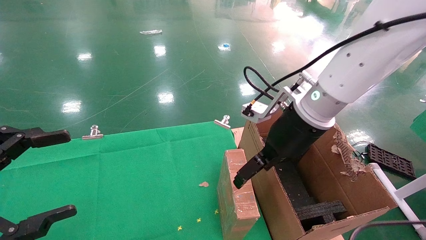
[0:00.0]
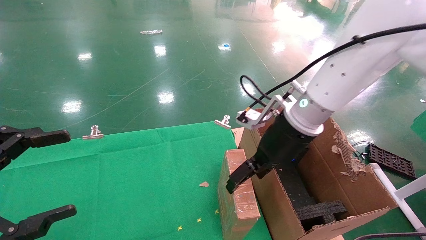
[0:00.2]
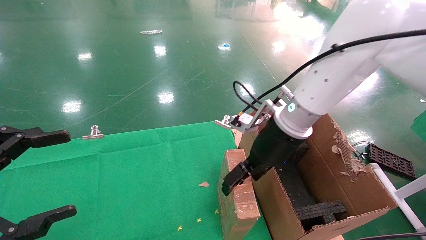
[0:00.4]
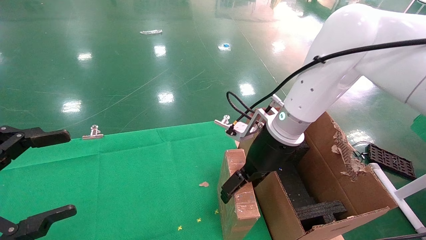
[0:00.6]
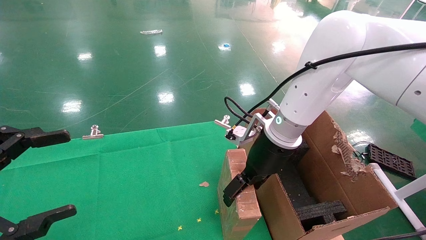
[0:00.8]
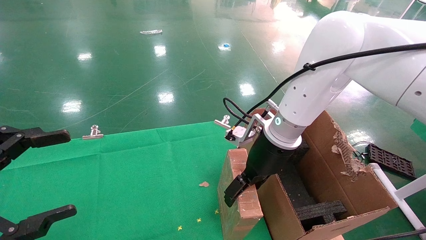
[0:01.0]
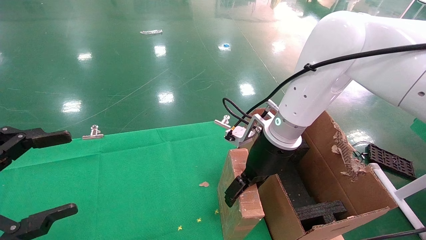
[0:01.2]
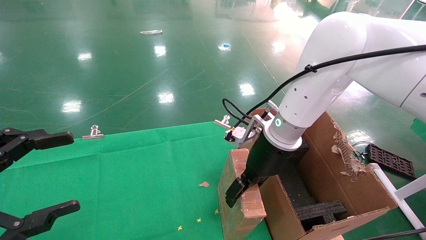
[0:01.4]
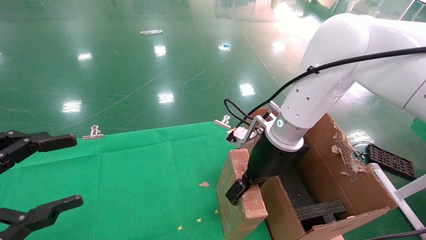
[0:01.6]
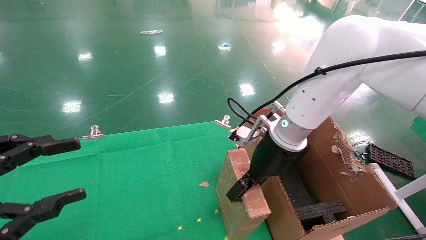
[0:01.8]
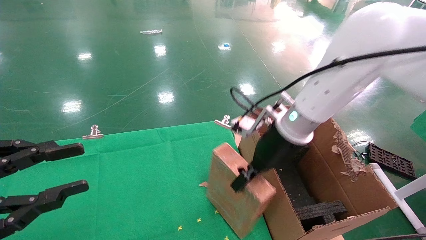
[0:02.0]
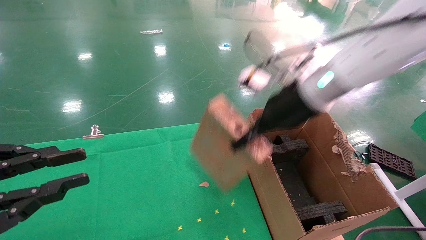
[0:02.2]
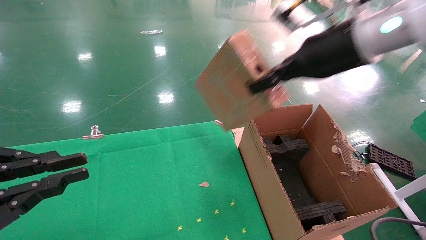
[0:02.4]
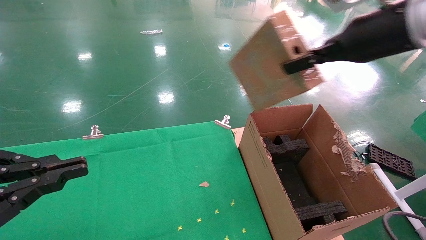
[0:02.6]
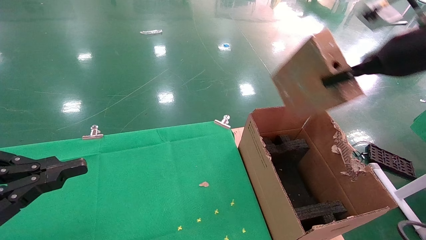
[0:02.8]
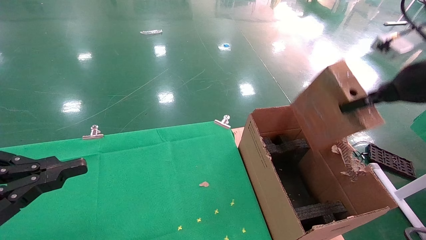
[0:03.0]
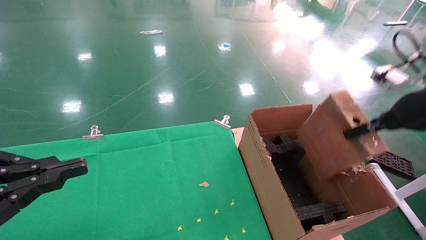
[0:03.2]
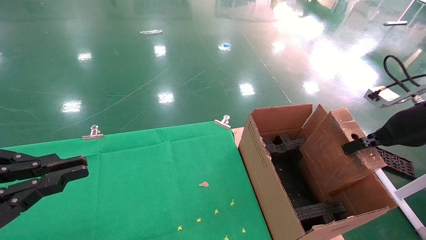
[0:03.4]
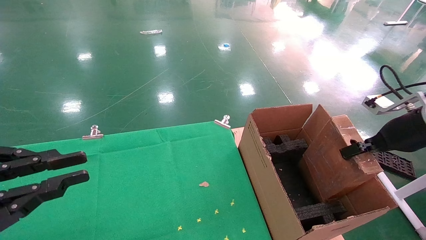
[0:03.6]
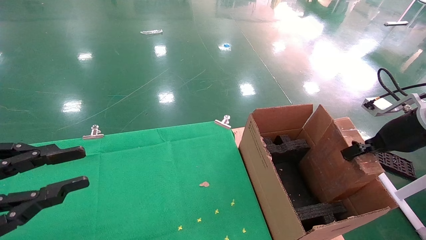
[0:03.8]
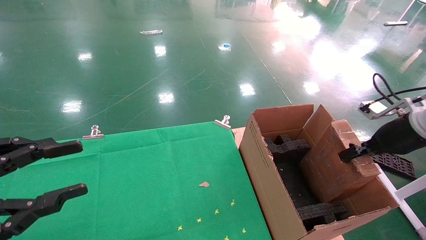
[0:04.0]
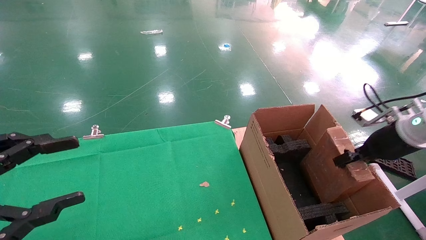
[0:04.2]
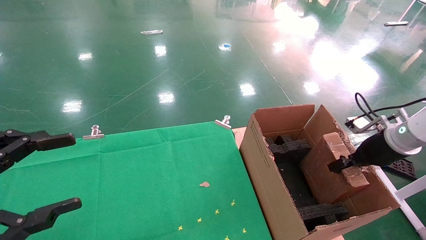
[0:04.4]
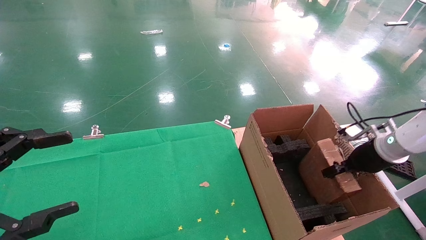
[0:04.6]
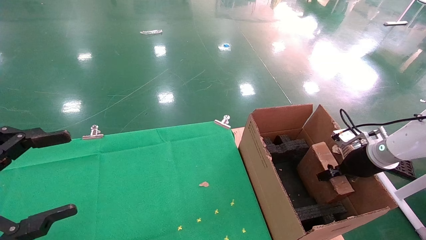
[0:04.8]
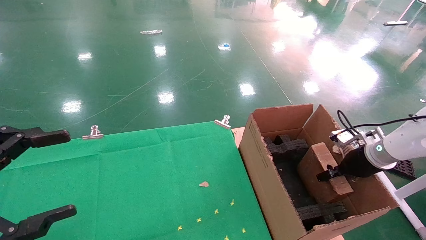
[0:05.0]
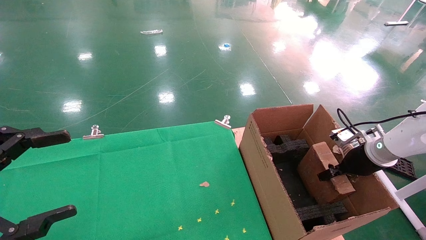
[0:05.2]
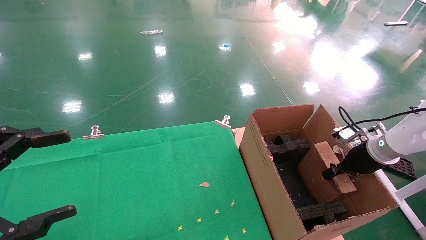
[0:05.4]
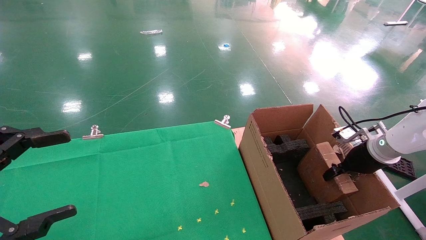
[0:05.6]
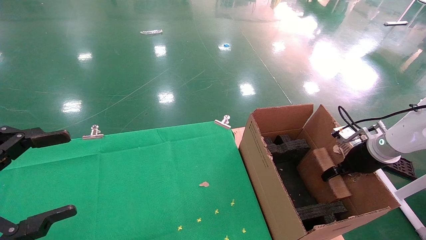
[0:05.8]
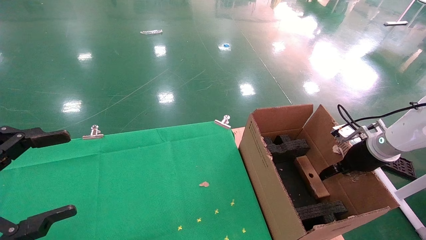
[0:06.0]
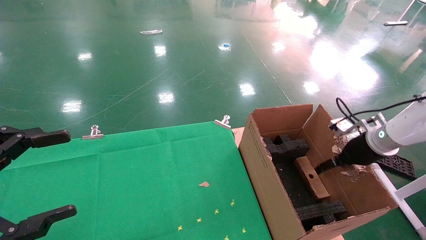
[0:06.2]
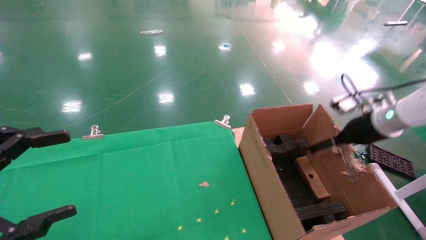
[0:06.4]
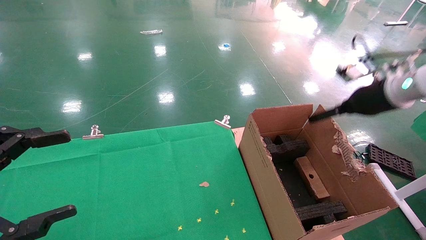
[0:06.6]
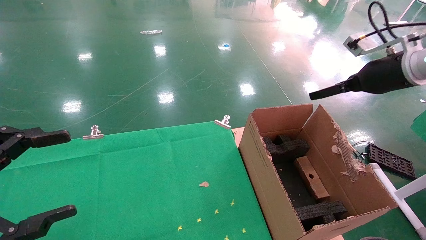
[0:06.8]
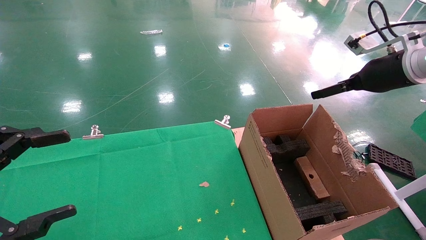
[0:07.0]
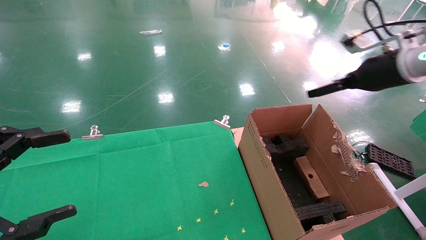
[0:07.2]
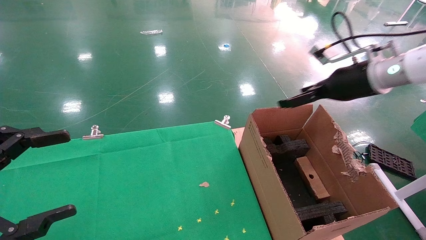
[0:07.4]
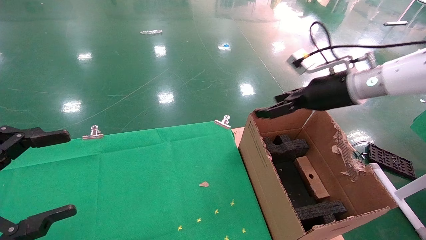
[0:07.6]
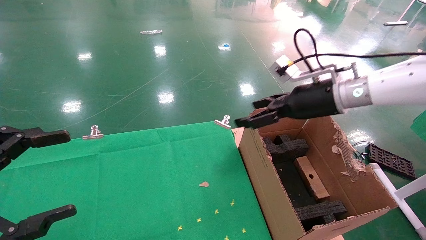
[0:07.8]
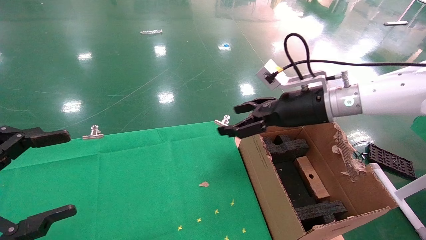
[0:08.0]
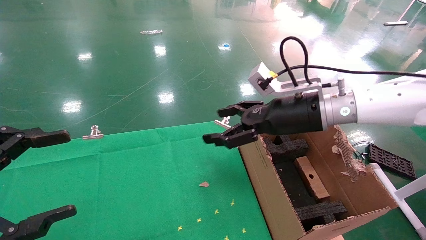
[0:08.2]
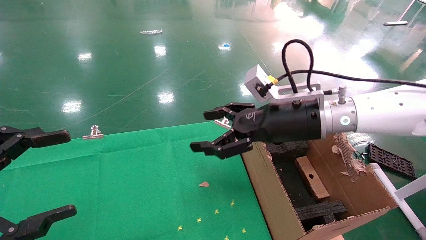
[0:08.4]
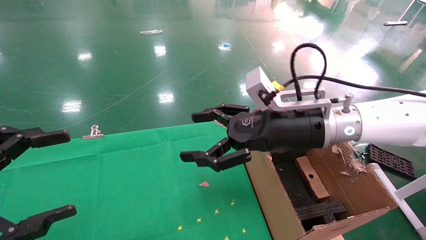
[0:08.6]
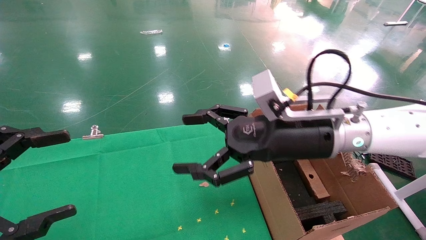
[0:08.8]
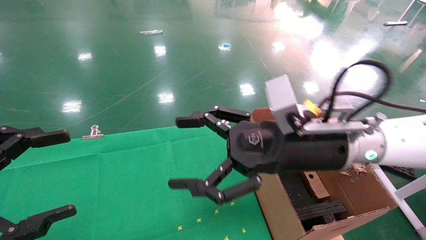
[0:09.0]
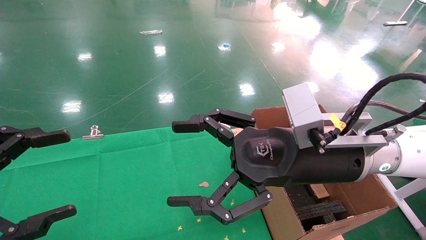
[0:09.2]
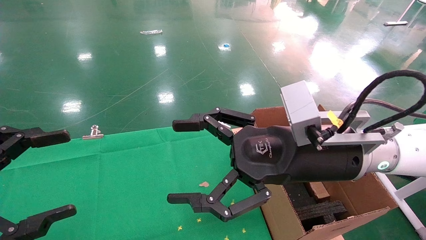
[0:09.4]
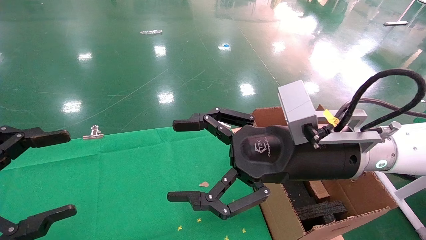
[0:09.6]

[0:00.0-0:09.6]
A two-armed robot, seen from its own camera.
Task of the whole recording: using a robotic arm to pick up a cardboard box and palace it the carton.
Step, 0:02.0 to 0:06.6: Place the mouse and the power cord paper box into the container.
0:00.0 to 0:01.6: The right gripper is displaced downward by approximately 5 cm.
0:01.6 to 0:03.2: The right gripper heads to the right, covering some 25 cm, and closes its fingers. Meanwhile the left gripper closes its fingers.
0:03.2 to 0:04.8: The left gripper opens up. Meanwhile the right gripper goes roughly 20 cm downward and forward.
0:04.8 to 0:06.4: The right gripper goes approximately 10 cm upward, and opens its fingers.
0:06.4 to 0:08.0: The right gripper is displaced to the left by roughly 20 cm.
0:08.0 to 0:09.6: The right gripper heads backward and to the left, covering about 15 cm.

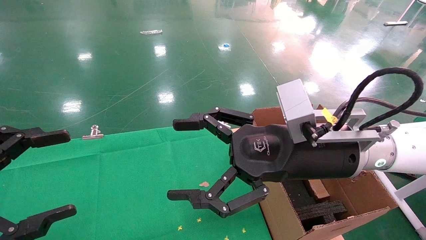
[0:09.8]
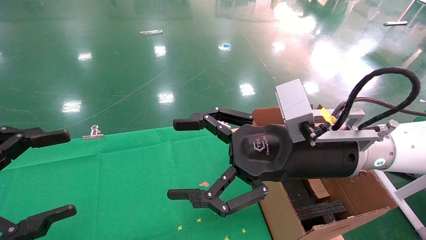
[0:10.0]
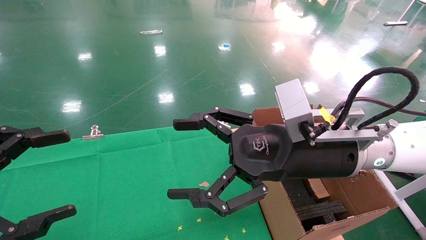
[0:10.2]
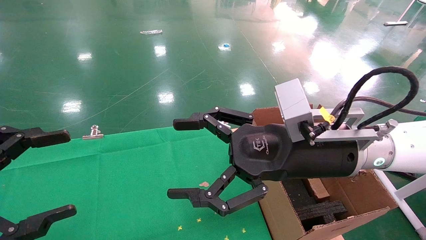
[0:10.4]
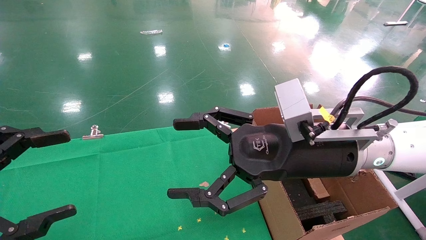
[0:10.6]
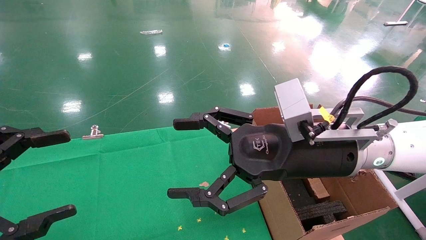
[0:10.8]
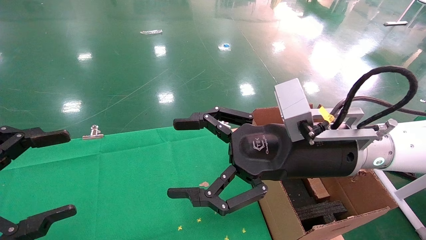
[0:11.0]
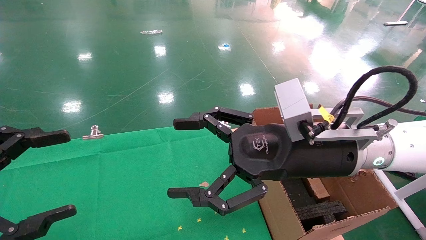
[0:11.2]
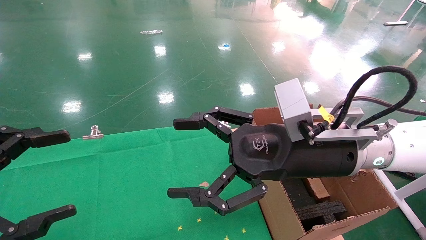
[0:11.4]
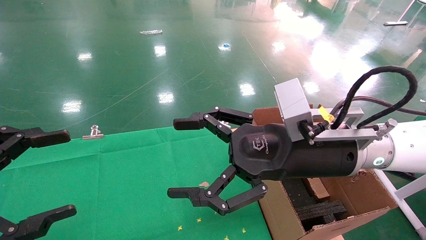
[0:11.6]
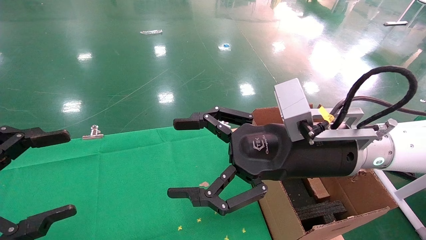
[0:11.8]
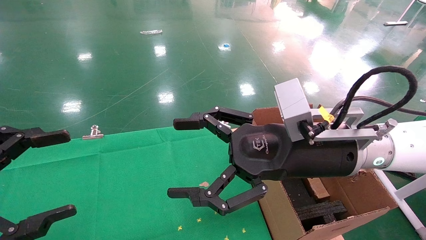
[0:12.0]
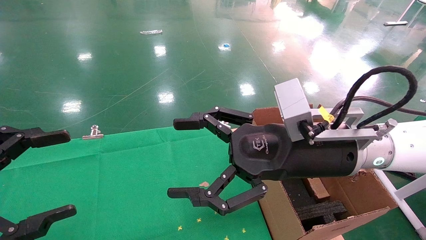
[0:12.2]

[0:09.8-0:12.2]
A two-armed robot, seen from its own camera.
Task of the whole recording: using a robotic arm to pick up a cardboard box and palace it the carton.
0:09.8 to 0:12.2: Both grippers stay put.
